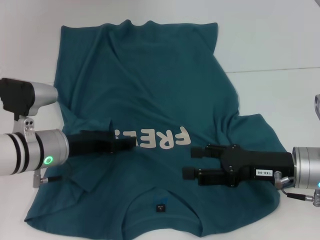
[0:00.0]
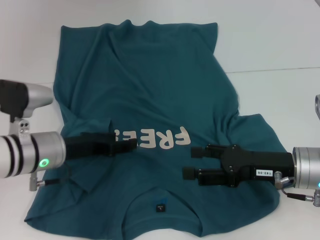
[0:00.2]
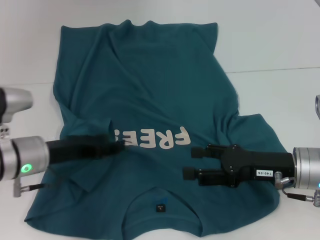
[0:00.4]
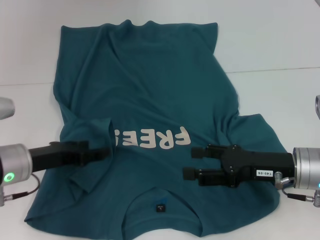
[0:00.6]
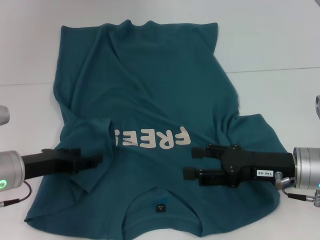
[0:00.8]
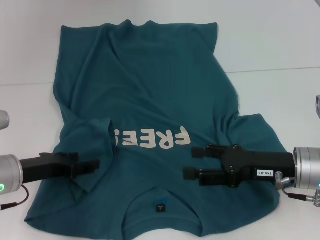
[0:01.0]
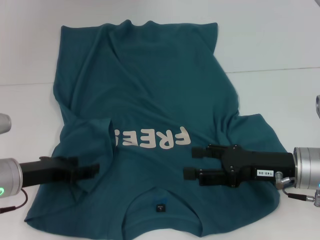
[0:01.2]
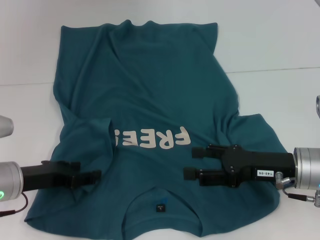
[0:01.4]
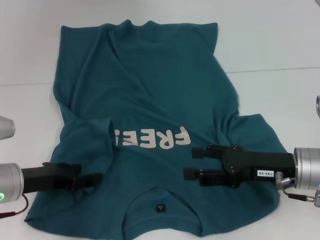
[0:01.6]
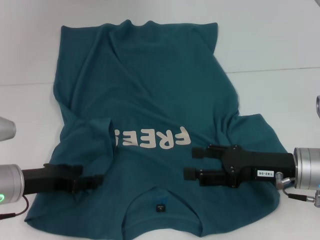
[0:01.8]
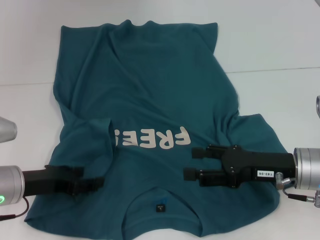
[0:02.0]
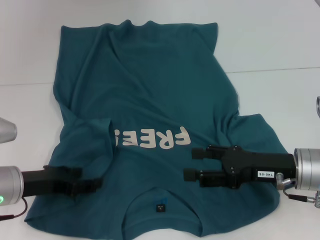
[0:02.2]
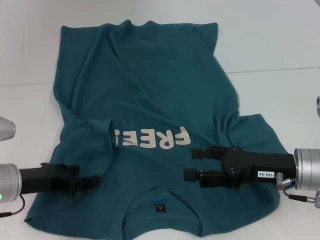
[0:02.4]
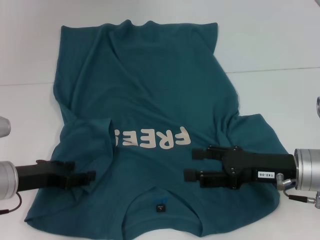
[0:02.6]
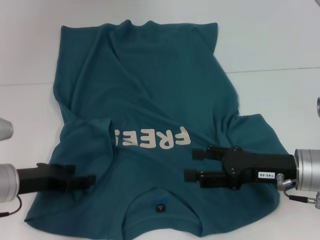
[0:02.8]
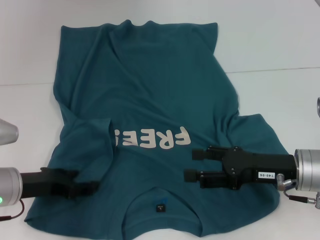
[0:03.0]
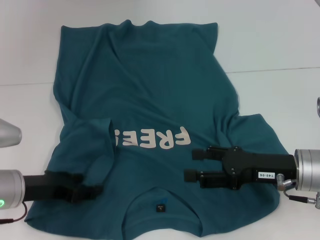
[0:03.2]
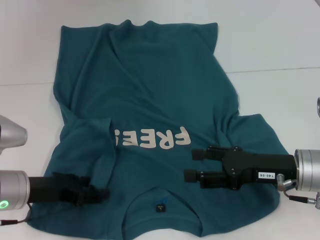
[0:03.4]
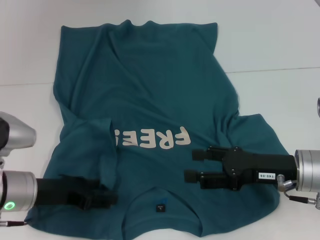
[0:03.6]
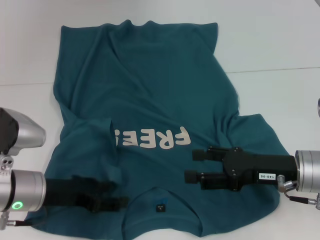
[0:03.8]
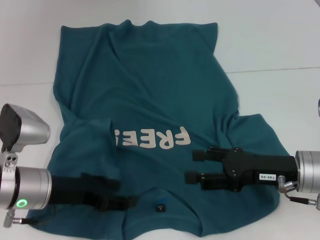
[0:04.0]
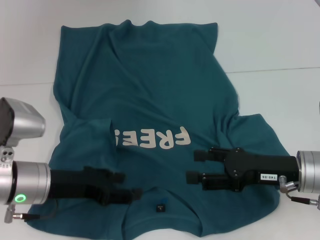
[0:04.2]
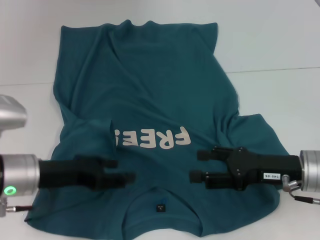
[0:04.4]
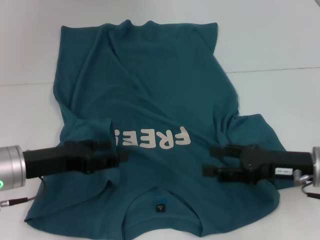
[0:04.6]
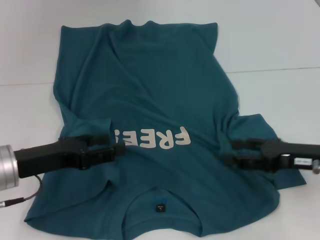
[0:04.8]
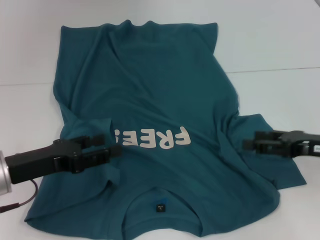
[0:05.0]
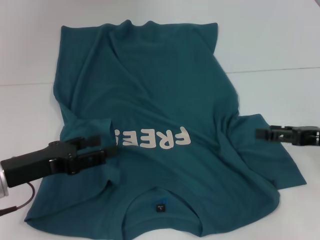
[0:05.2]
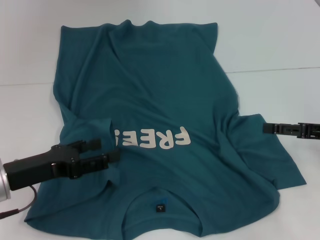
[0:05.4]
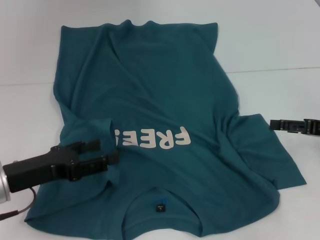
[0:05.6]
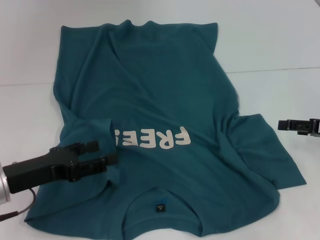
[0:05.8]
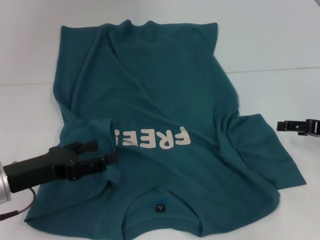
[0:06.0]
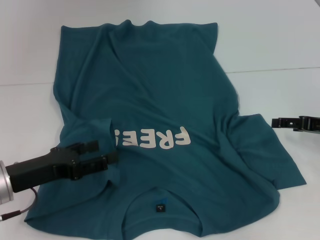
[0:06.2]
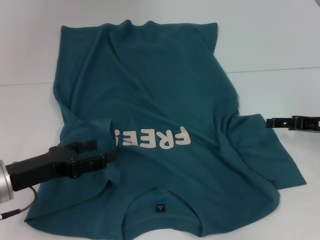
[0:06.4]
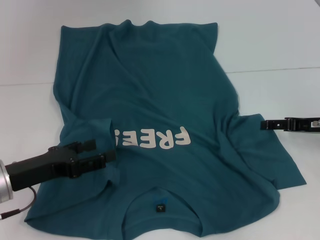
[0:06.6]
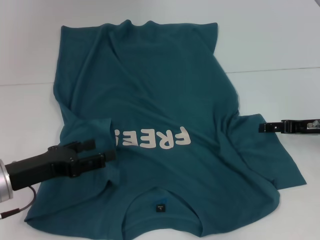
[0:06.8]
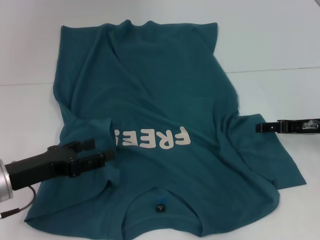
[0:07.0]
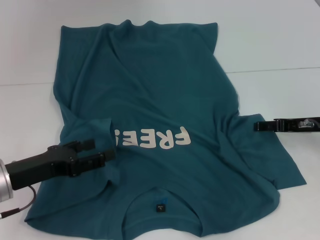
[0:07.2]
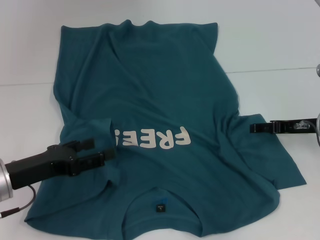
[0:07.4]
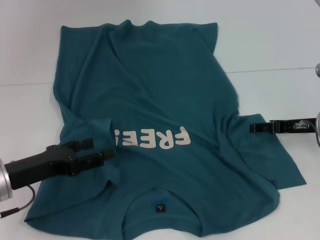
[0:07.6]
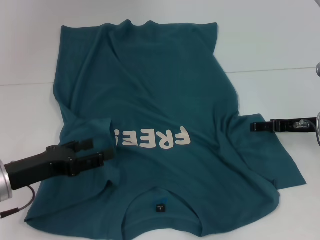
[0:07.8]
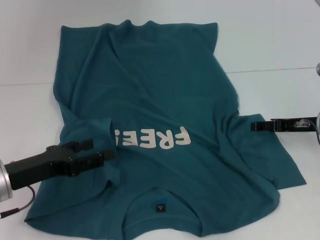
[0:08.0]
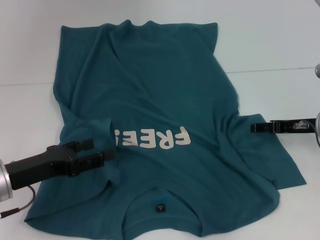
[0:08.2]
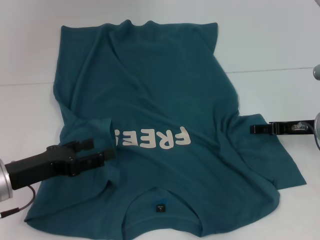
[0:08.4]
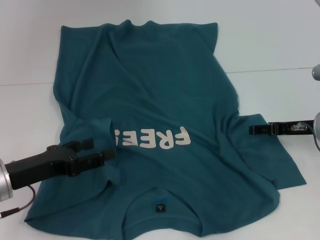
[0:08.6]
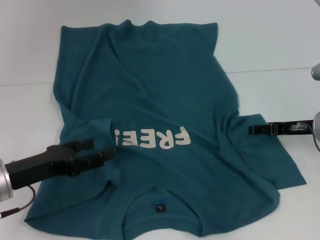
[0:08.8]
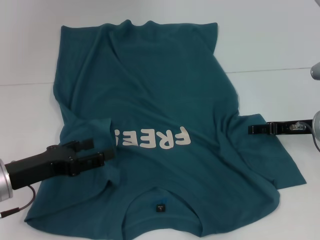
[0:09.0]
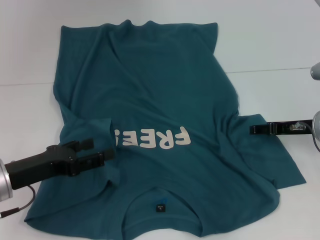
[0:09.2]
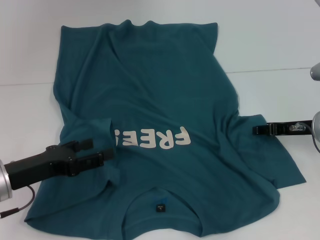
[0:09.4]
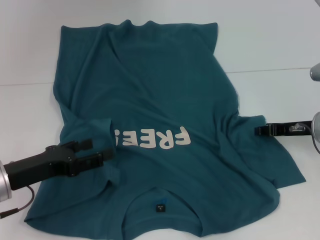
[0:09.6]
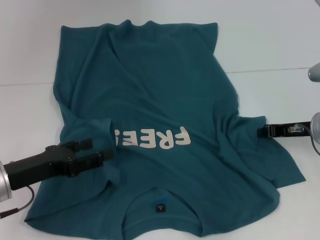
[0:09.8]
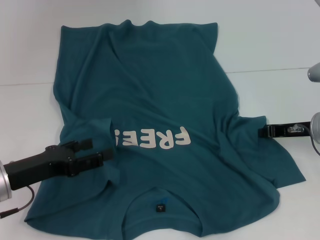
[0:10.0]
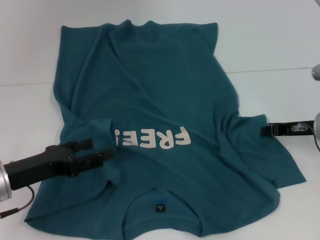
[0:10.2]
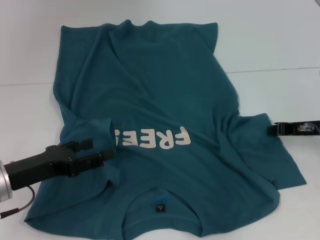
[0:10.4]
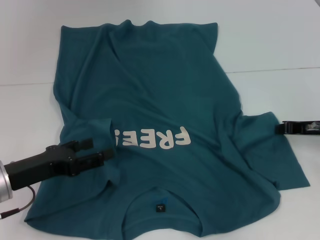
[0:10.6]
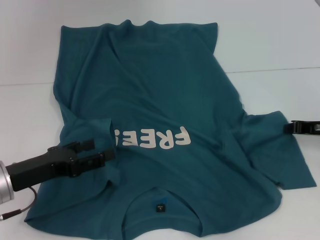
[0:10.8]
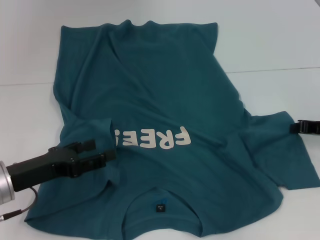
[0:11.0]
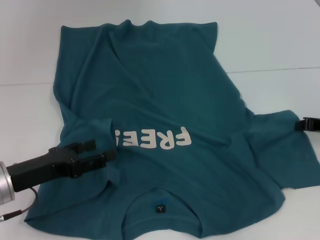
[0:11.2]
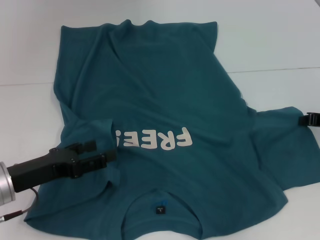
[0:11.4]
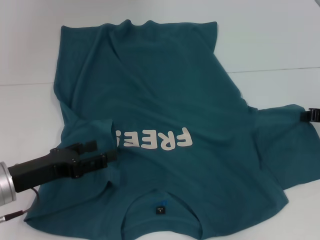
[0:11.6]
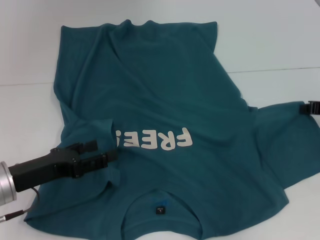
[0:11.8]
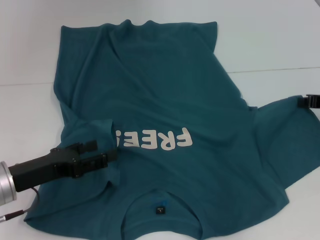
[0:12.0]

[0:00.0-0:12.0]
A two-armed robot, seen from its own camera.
0:00.0 to 0:01.6: The left gripper goes some 5 cm to the left.
0:01.6 to 0:03.0: Both grippers stay about where they are.
0:03.0 to 0:04.4: There are only small adjustments of the grippers.
0:04.4 to 0:06.0: The right gripper travels to the right by approximately 10 cm.
0:06.0 to 0:07.6: The right gripper moves to the left, about 5 cm.
0:07.6 to 0:09.0: The two grippers keep their place.
0:09.0 to 0:10.4: The right gripper closes.
0:10.4 to 0:12.0: The right gripper moves approximately 5 cm.

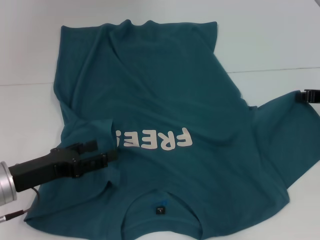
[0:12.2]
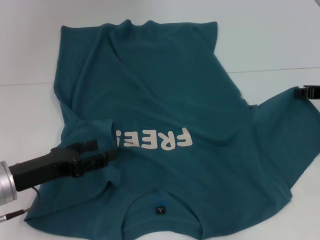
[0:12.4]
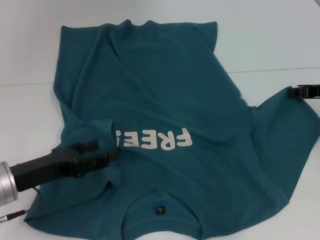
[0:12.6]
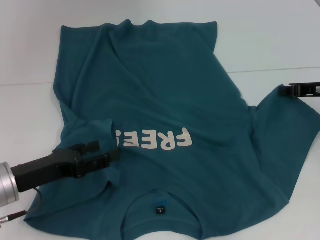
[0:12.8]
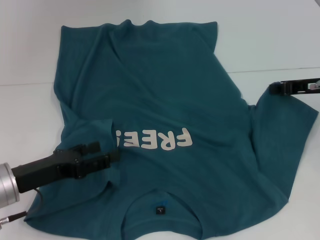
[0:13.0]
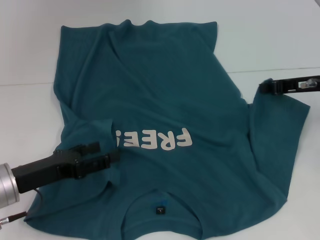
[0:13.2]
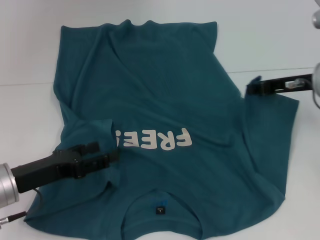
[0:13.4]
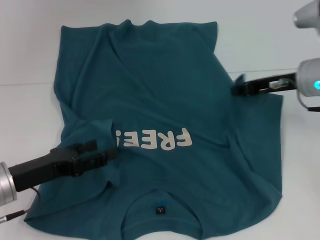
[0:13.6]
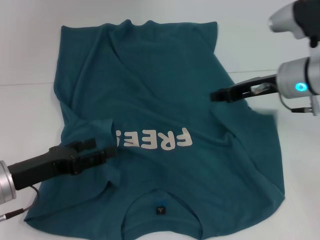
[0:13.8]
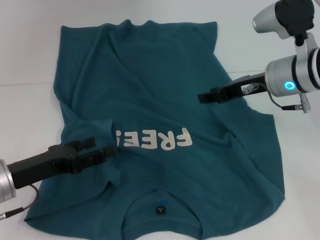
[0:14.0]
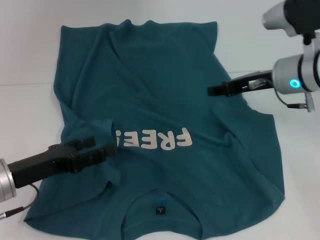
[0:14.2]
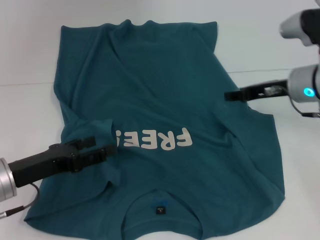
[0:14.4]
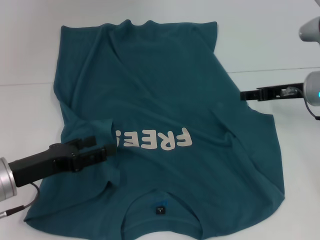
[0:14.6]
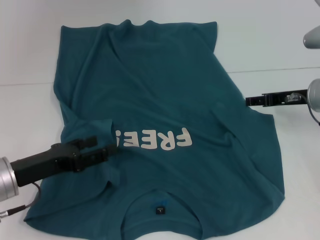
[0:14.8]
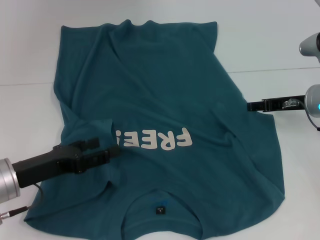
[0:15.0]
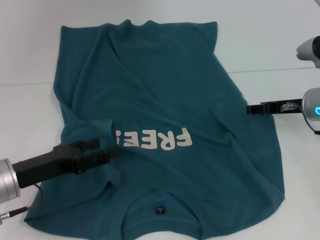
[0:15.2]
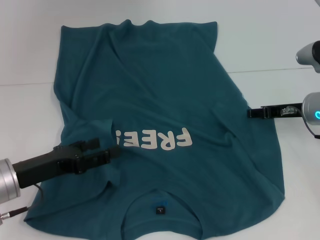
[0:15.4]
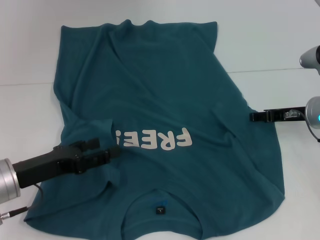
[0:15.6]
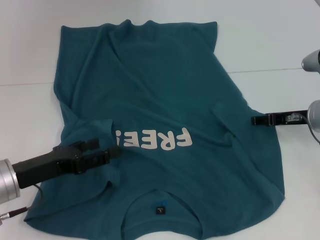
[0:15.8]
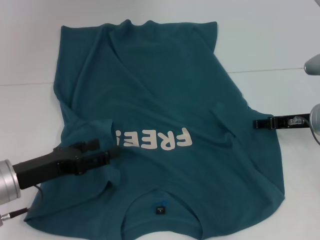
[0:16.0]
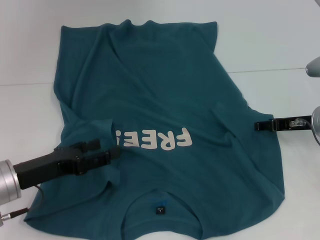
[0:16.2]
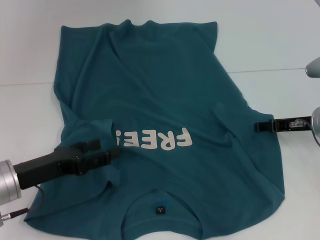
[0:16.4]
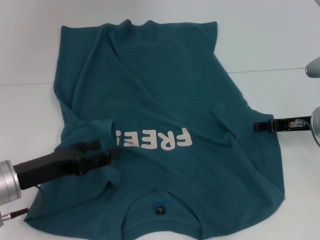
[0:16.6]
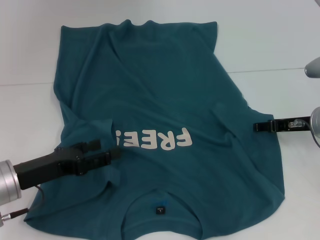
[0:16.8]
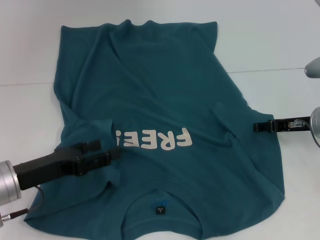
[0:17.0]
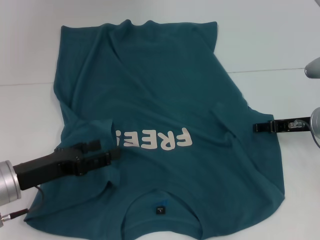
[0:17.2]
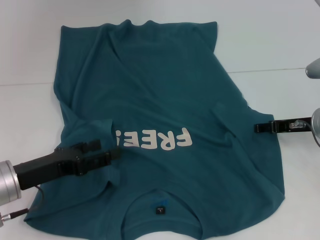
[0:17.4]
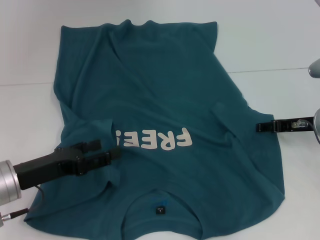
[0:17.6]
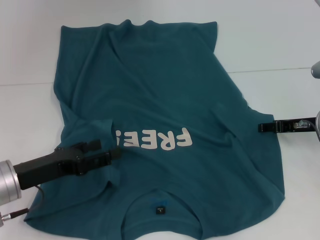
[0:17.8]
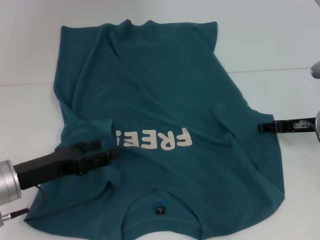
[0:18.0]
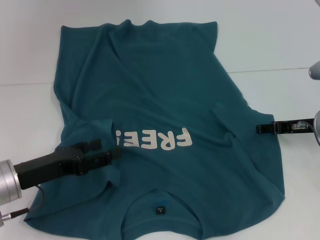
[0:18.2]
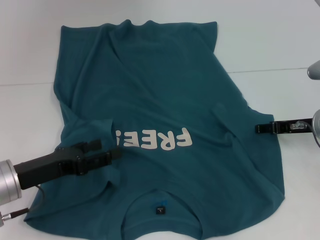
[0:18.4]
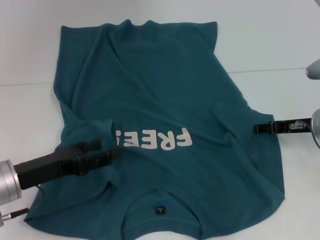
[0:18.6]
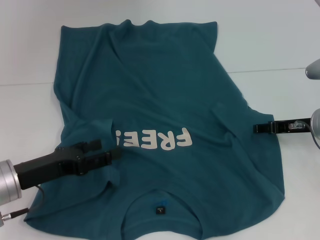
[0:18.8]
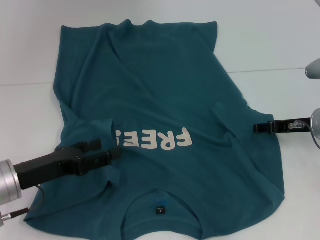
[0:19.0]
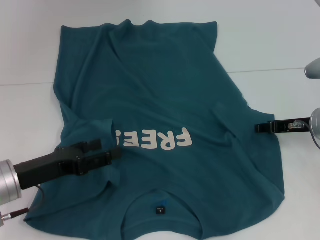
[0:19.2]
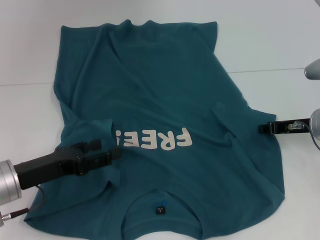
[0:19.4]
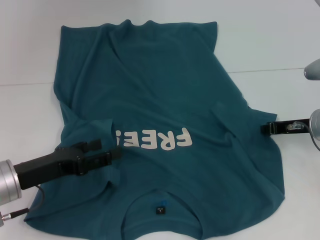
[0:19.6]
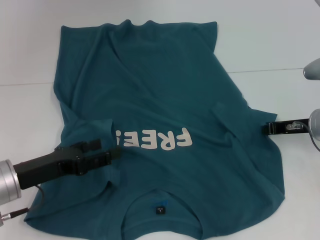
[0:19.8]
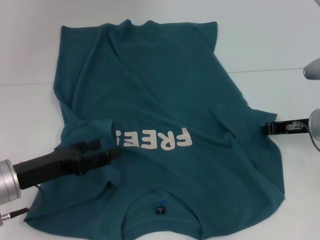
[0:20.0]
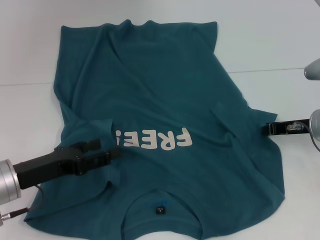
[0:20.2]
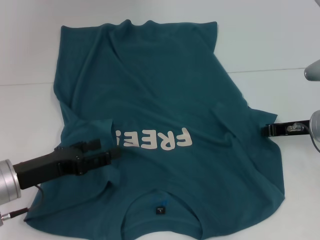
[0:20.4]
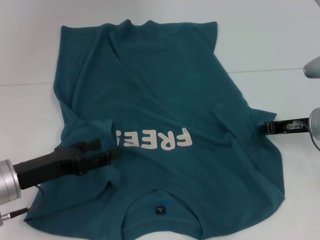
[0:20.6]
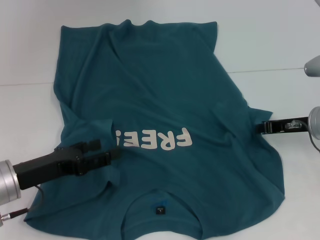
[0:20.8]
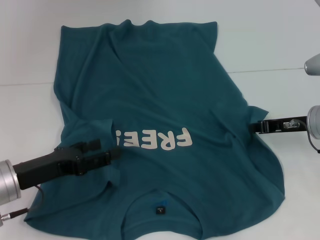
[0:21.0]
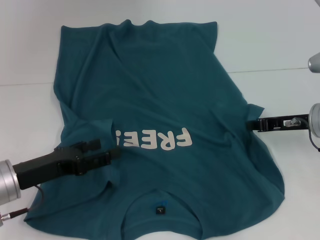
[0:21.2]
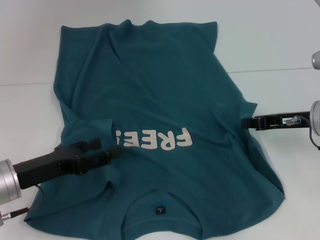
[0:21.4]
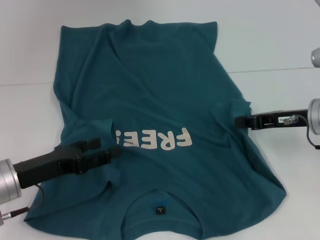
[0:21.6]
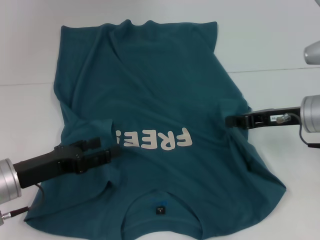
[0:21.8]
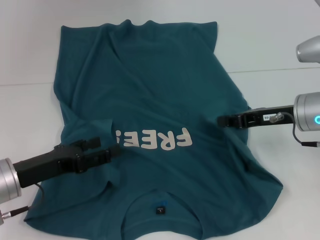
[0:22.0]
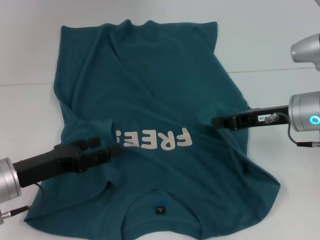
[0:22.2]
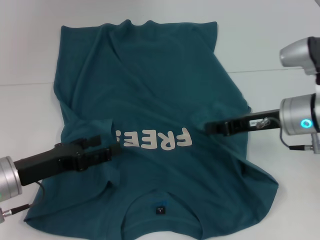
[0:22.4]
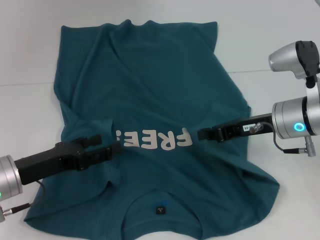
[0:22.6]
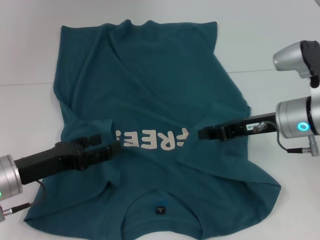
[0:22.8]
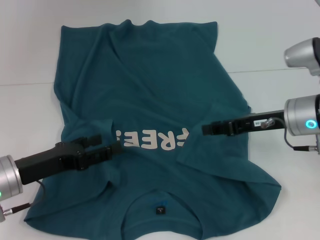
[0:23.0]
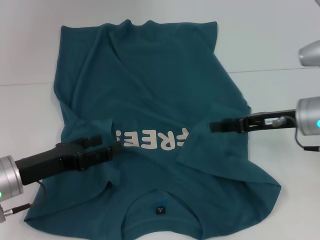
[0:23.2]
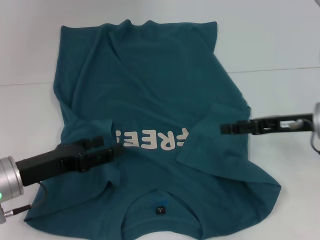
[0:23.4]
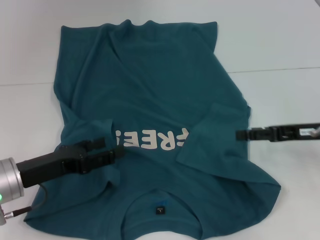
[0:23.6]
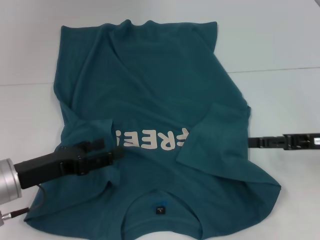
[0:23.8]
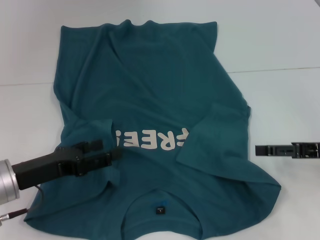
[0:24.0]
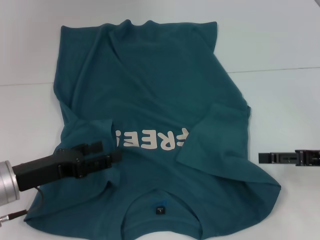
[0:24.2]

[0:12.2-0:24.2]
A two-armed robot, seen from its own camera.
Step, 0:12.2 to 0:23.2: Fold the bottom right sleeve to the right.
0:12.2 to 0:13.8: The right gripper moves to the left, about 10 cm.
0:13.8 to 0:15.2: The right gripper is displaced downward and to the right by approximately 10 cm, and opens.
0:15.2 to 0:16.6: There are only small adjustments of the grippers.
0:16.6 to 0:18.2: Neither gripper changes place.
0:18.2 to 0:19.8: The right gripper closes.
0:19.8 to 0:21.2: The grippers stay close to where they were, moving slightly.
0:21.2 to 0:22.6: The right gripper travels to the left by approximately 5 cm.
0:22.6 to 0:24.2: The right gripper shifts about 15 cm to the right and backward, and opens.
